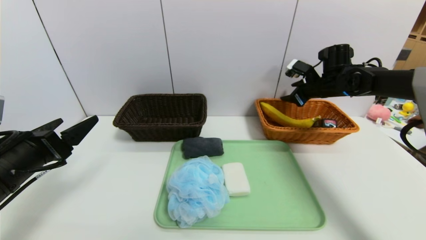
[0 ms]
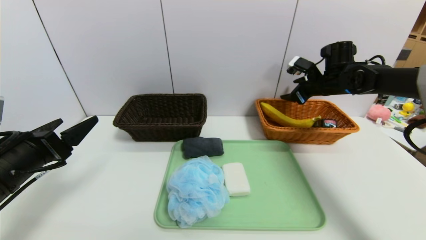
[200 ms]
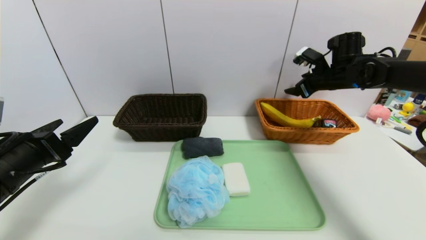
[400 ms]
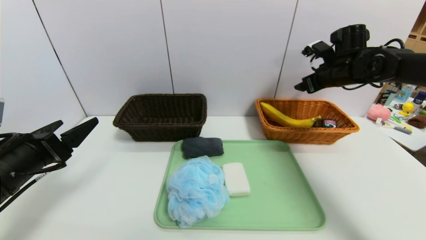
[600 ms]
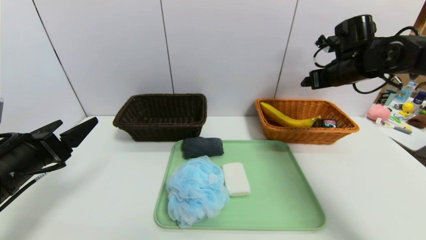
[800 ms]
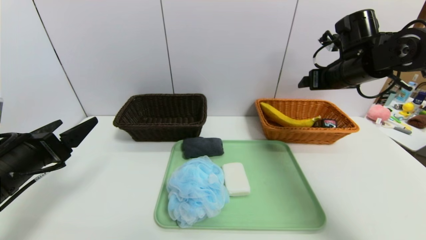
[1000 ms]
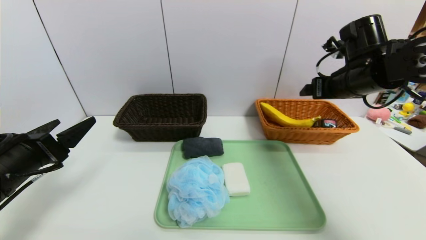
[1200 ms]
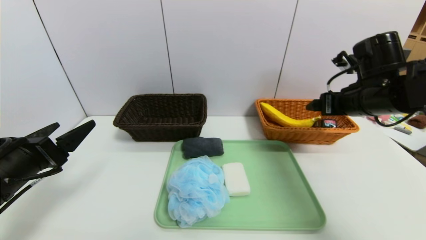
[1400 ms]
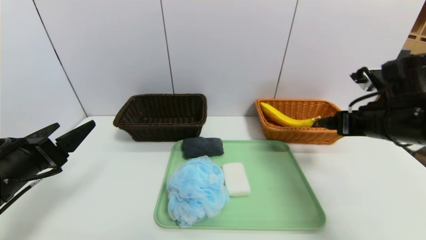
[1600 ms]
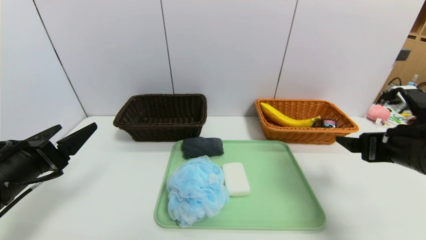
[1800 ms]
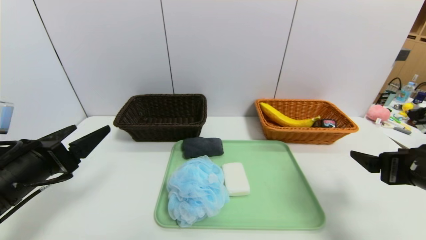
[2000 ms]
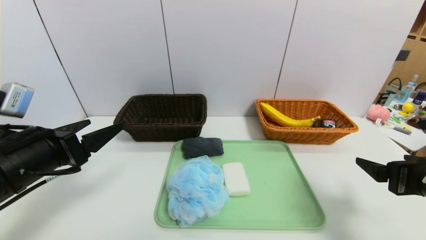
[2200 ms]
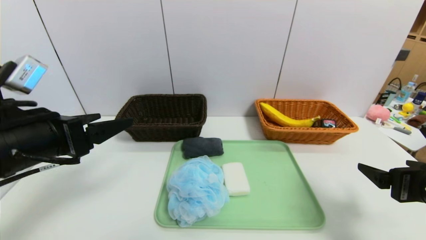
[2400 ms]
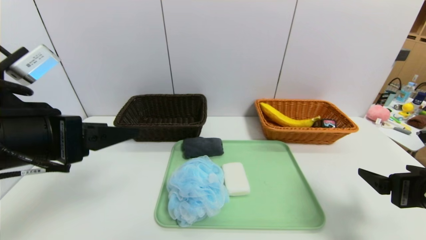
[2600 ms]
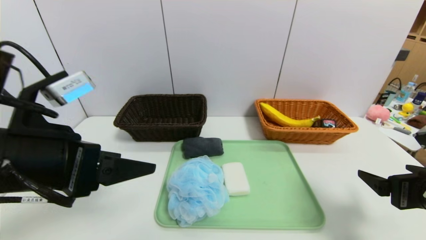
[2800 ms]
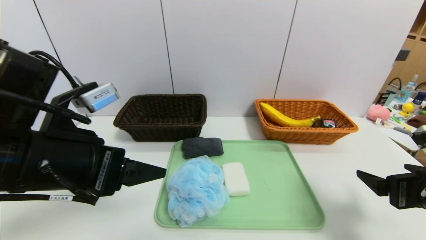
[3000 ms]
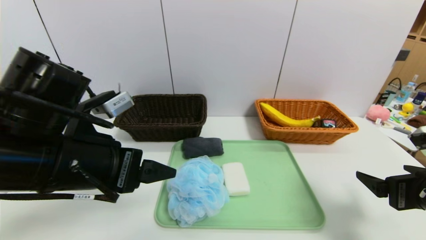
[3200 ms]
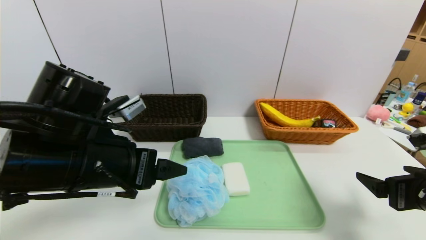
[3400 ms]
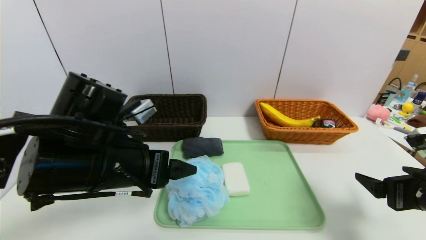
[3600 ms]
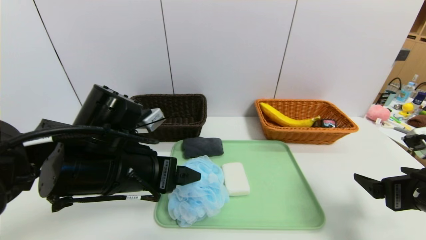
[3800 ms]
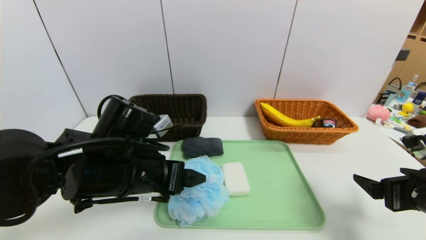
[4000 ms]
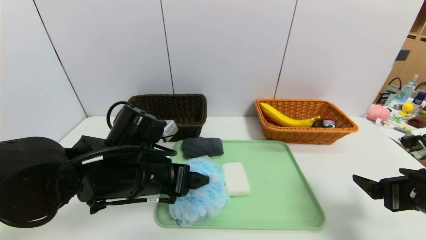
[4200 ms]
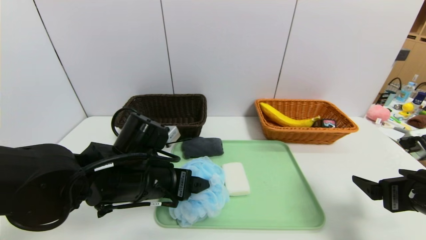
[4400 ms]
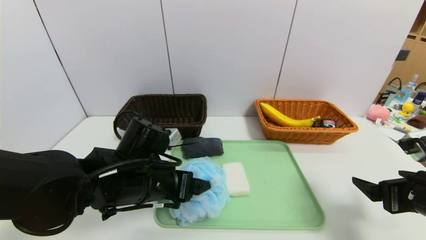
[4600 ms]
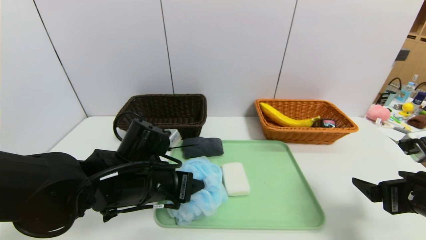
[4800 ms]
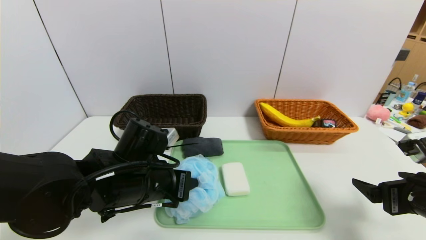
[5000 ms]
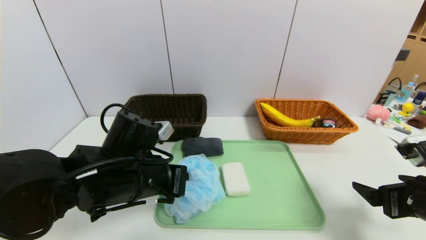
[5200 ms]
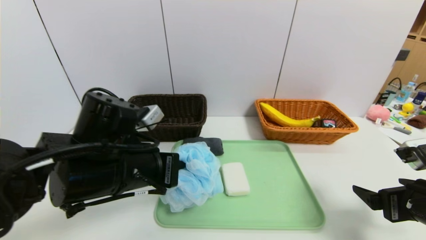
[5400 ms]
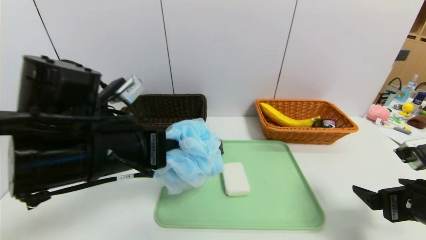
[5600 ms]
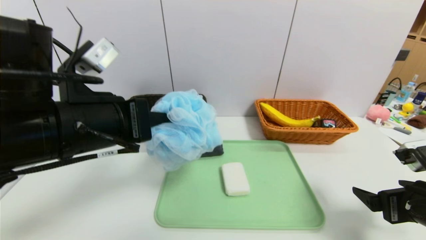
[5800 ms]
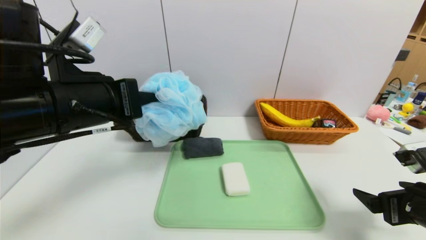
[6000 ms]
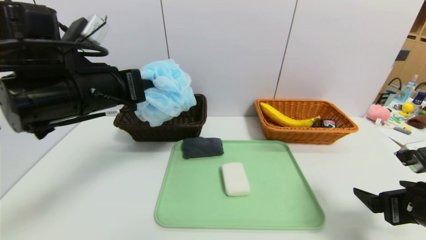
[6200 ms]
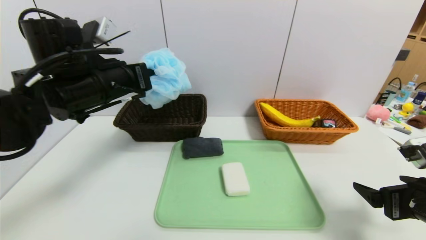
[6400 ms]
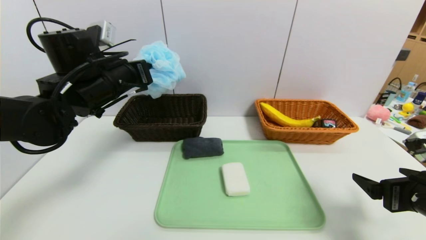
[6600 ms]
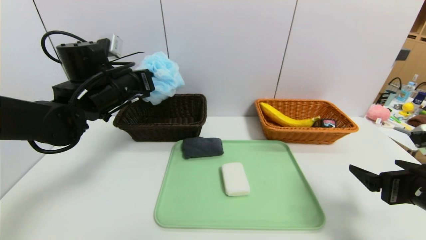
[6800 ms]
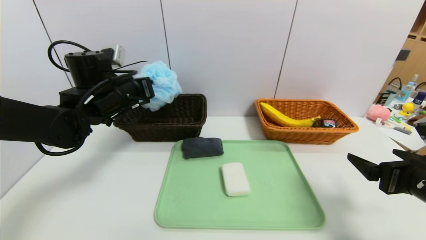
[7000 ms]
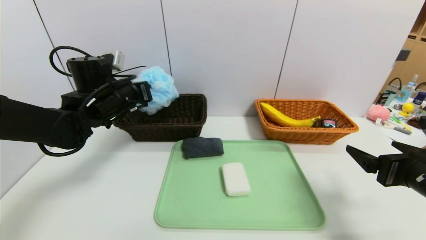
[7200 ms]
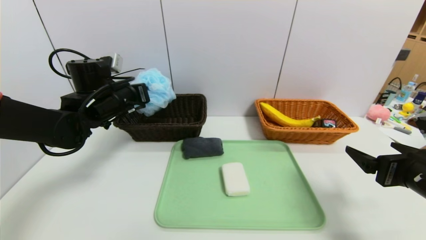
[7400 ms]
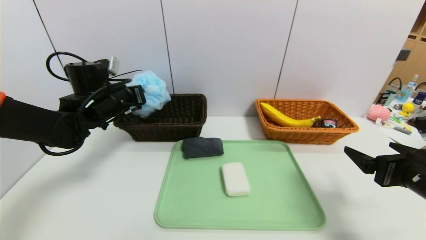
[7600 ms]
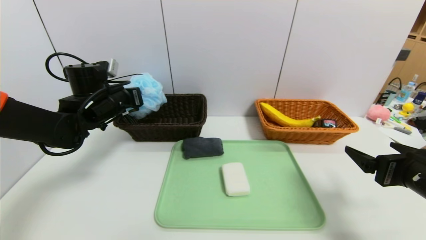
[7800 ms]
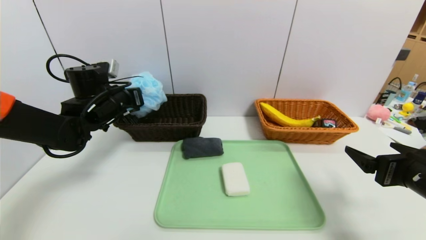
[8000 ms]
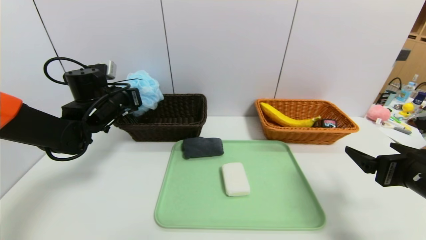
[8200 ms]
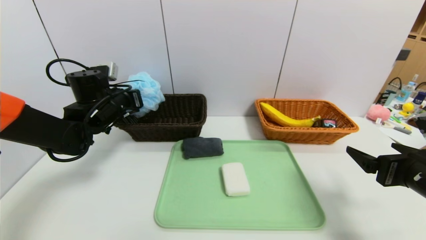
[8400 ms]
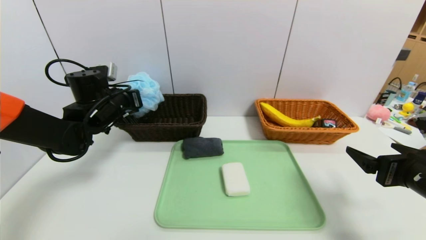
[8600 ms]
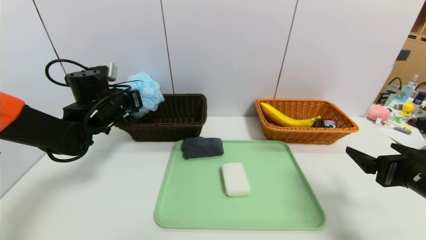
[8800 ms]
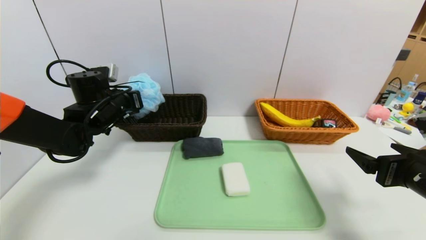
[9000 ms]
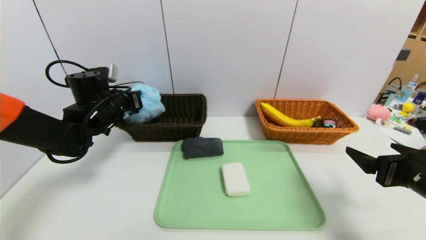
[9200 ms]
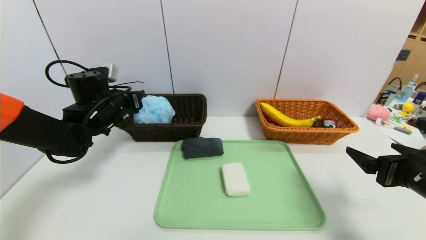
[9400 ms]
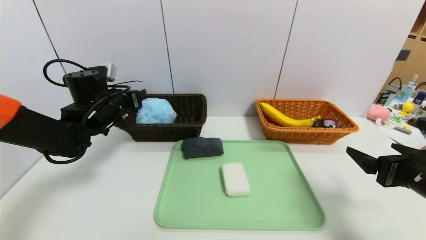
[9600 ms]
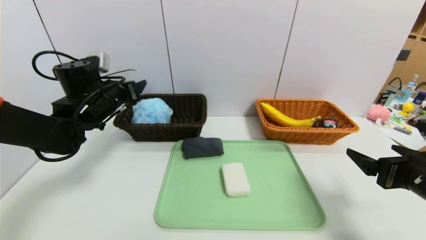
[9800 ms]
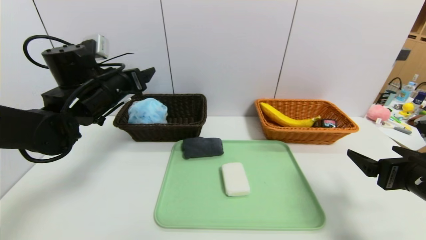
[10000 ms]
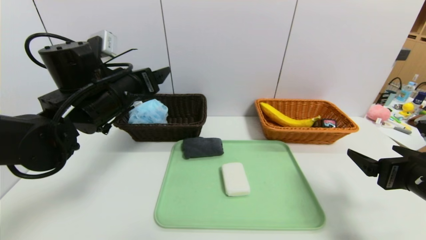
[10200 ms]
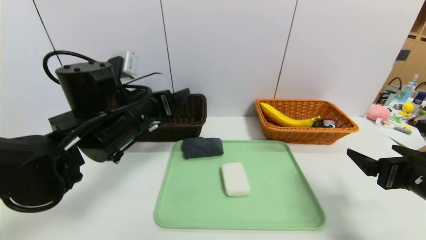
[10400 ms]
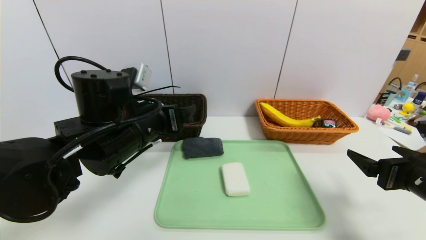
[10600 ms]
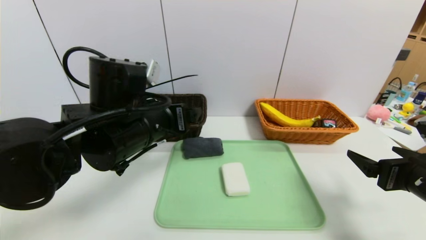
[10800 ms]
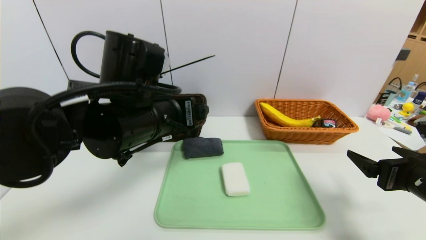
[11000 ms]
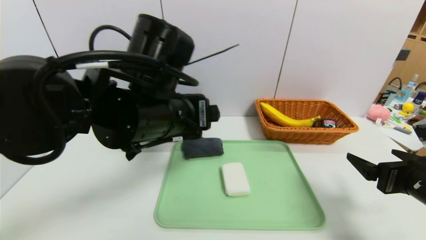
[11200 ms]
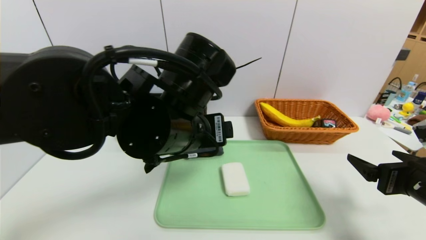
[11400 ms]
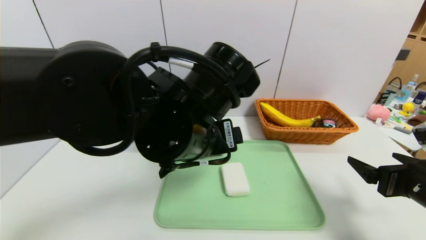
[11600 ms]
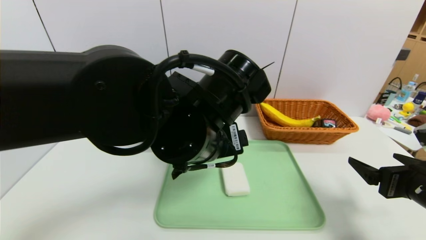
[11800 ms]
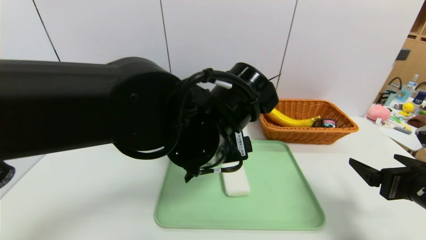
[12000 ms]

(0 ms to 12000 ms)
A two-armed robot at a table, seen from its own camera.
Task of the whole recording: place the food in the right basket with the right gripper, and place the non food items in the left basket with the left gripper.
Step, 600 ms - 10000 ms: Grasp the bath ball and put it in the left basket.
0 ms - 1600 ms: The right gripper travels backward by some 20 cm, and opens.
1600 ms - 3000 ms: The right gripper is displaced backward and downward by some 10 cm, while the left gripper travels to the right and upward by approximately 15 cm.
3000 ms - 4400 ms: The left gripper travels downward, to the right and forward by roughly 15 cm.
4400 ms - 6000 ms: The left gripper shifts some 15 cm upward and to the left, and closes.
6000 ms - 7600 ms: The left gripper travels forward and downward by some 20 cm.
7600 ms - 9000 ms: The grippers make only small movements.
9000 ms - 10400 ms: The left gripper heads backward and to the right, covering approximately 15 cm, and opens its fingers.
10400 ms - 12000 ms: The left gripper travels to the right by about 15 cm.

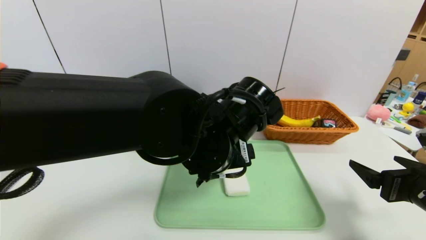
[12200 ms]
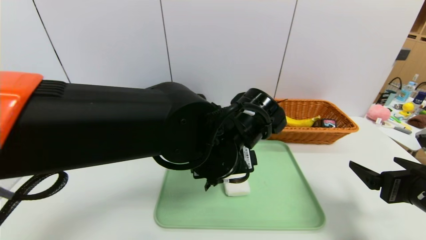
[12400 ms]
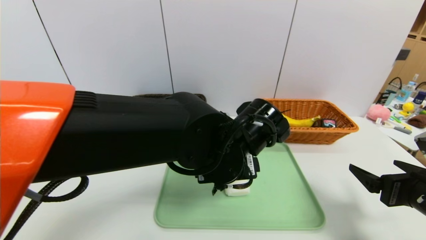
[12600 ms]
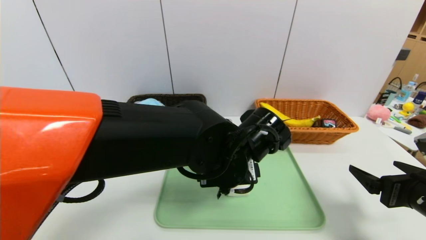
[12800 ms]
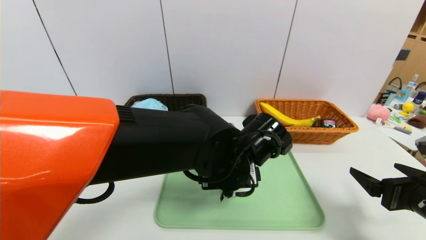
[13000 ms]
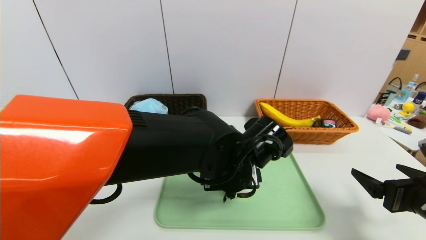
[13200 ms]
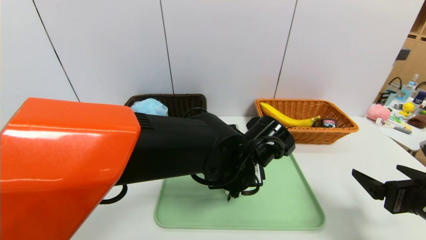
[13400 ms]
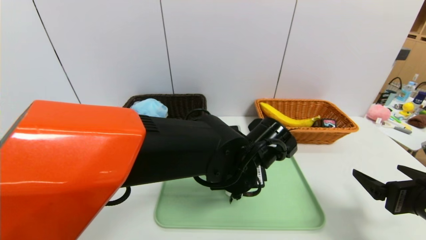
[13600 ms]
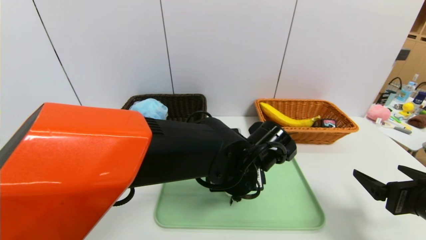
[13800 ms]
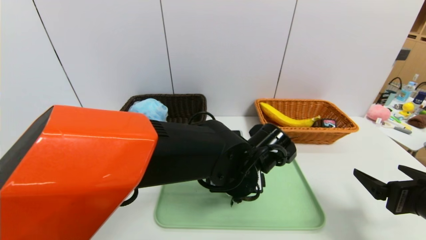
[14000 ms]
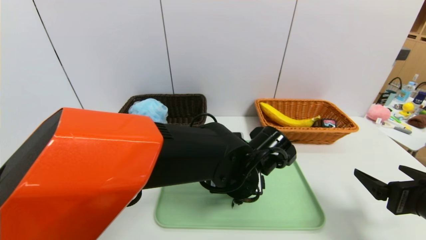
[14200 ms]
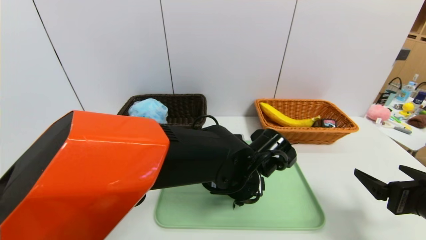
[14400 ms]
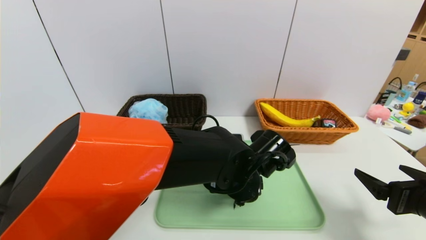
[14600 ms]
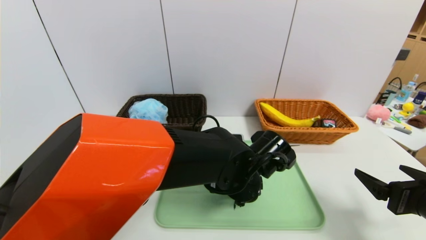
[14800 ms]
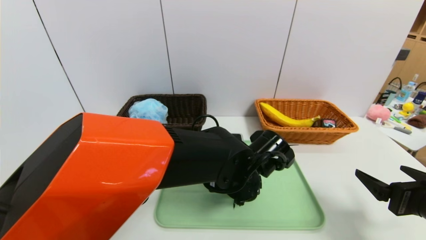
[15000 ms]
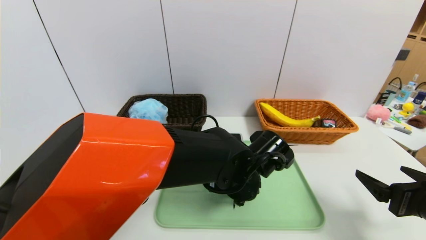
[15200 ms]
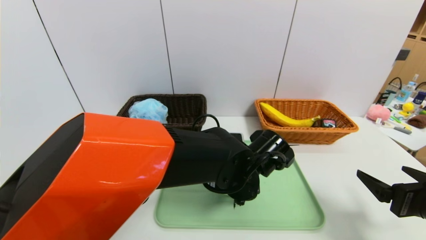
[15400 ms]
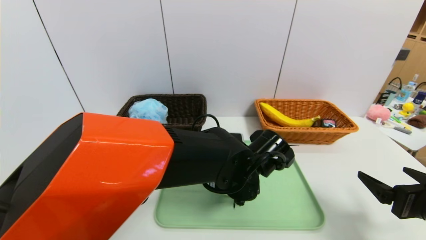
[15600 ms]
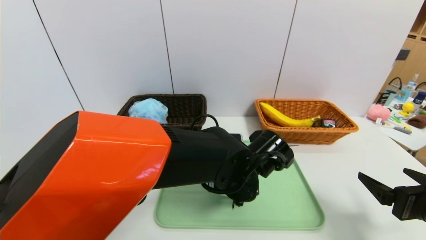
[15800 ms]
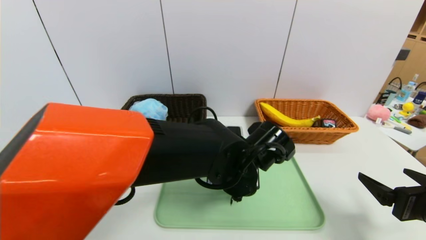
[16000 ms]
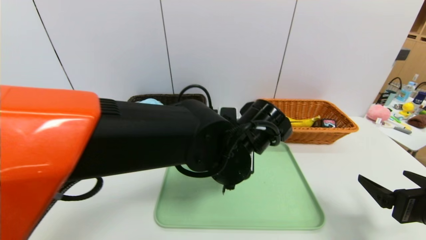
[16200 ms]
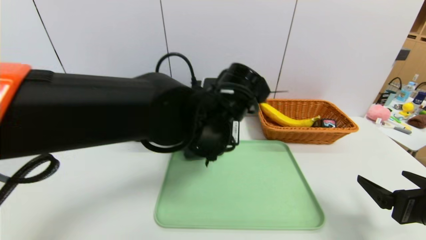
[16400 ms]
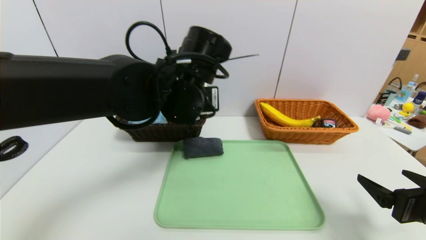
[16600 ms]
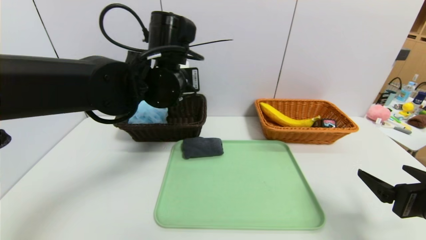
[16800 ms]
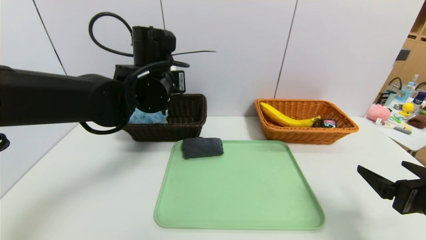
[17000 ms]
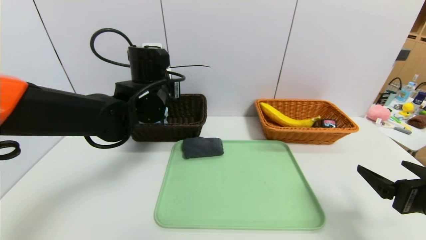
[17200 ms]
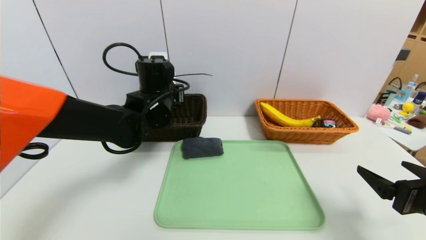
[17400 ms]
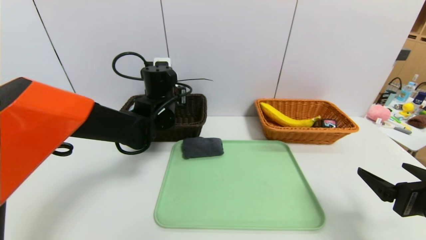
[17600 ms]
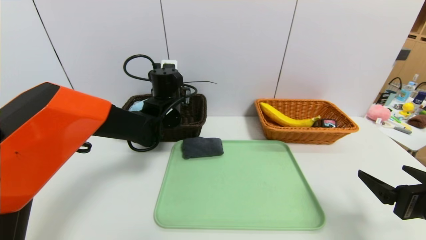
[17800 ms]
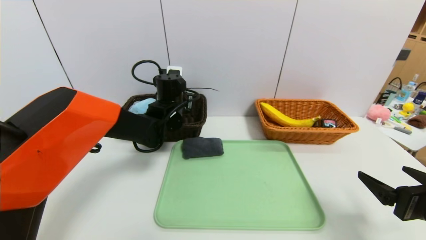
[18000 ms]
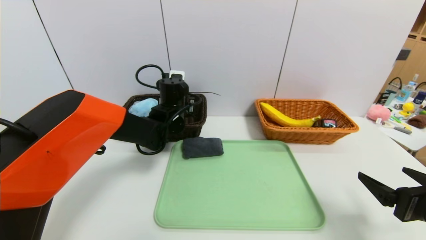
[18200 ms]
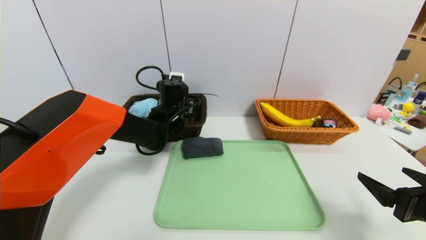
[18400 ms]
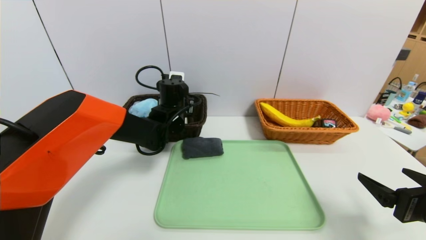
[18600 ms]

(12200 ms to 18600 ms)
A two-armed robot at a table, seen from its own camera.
Task of the whole recording: place the food in the right basket with the right gripper, and place the non food items in the left basket with the left gripper.
12200 ms - 13800 ms: The left gripper is displaced downward by approximately 5 cm.
13800 ms - 15400 ms: There are only small adjustments of the grippers.
15400 ms - 17000 ms: The left gripper goes approximately 20 cm to the left, upward and forward.
17000 ms - 18600 ms: The left gripper heads downward and forward, covering about 15 cm.
